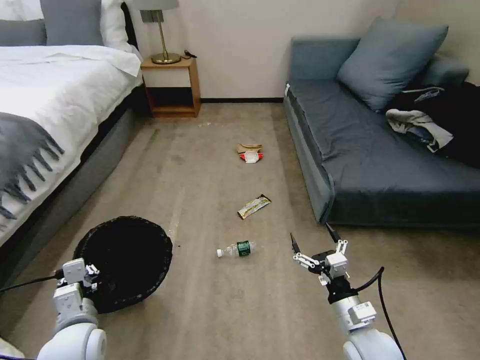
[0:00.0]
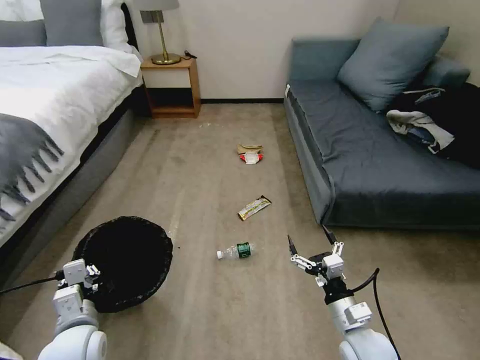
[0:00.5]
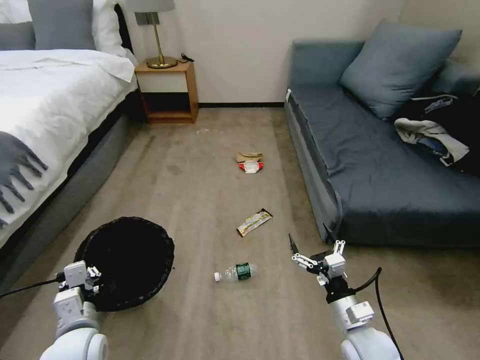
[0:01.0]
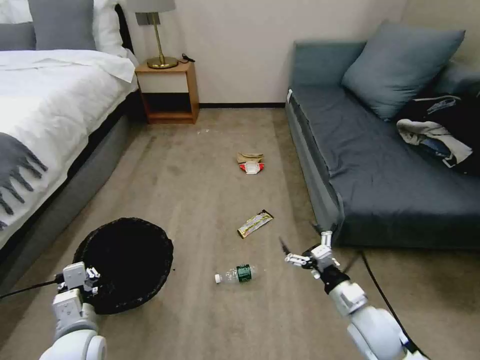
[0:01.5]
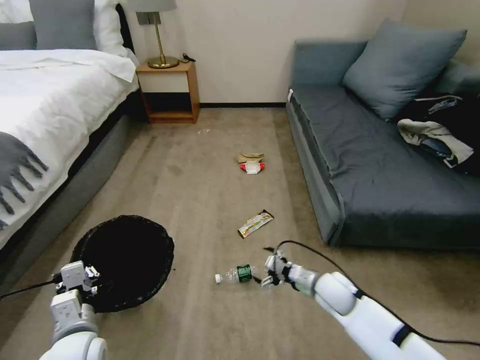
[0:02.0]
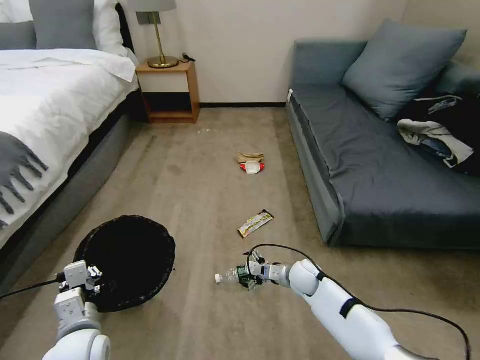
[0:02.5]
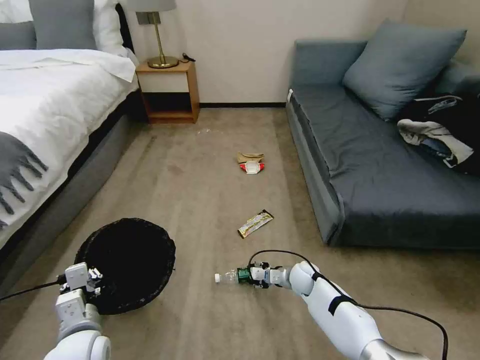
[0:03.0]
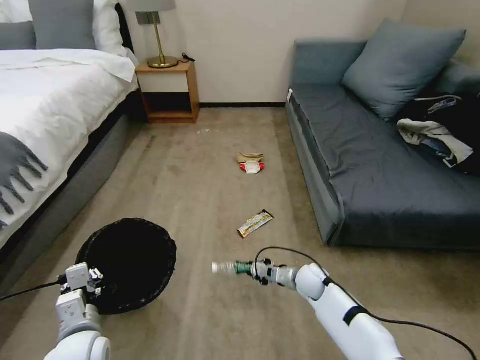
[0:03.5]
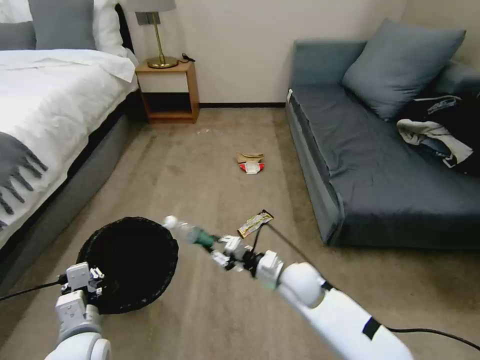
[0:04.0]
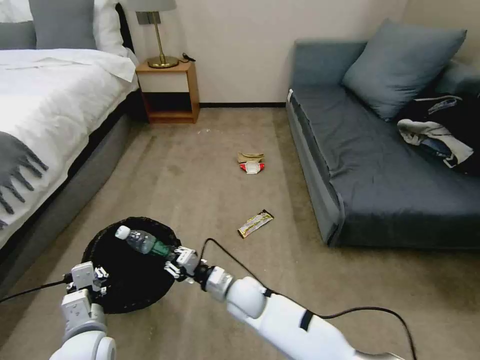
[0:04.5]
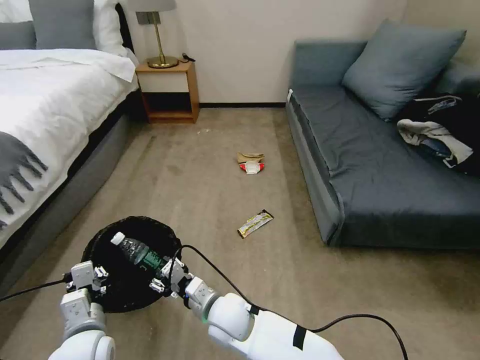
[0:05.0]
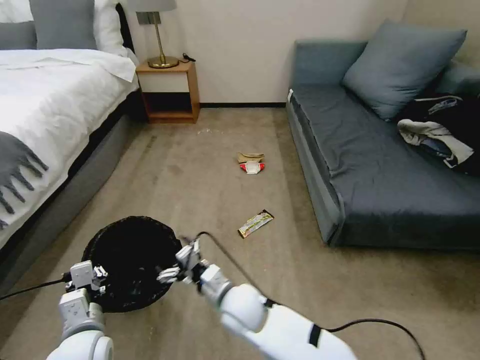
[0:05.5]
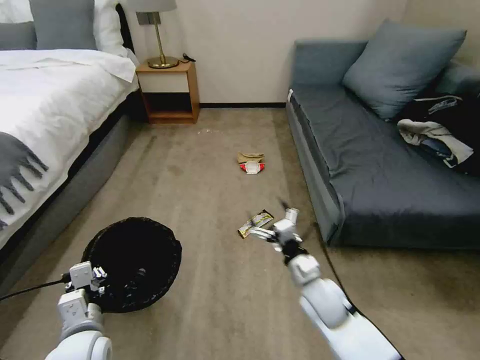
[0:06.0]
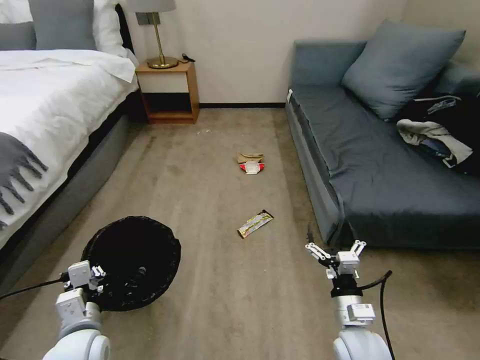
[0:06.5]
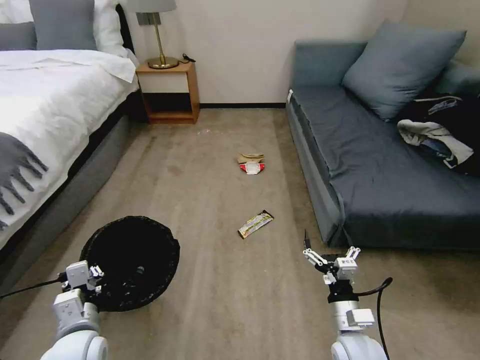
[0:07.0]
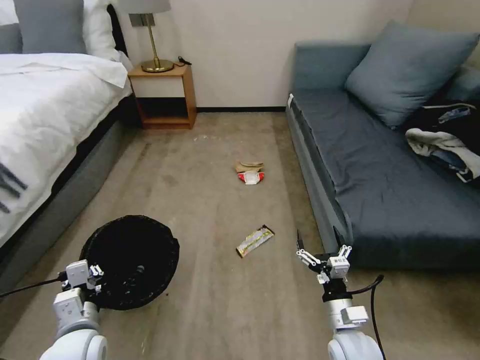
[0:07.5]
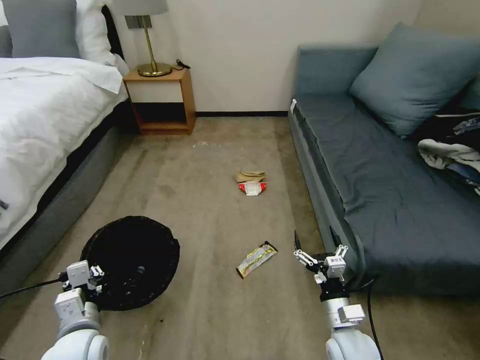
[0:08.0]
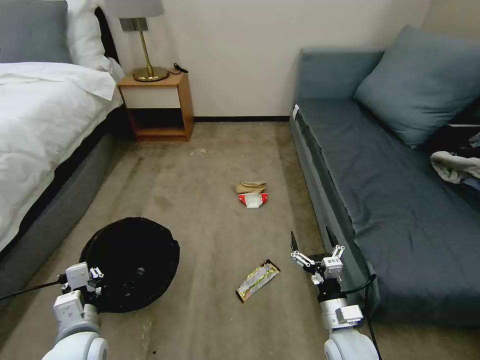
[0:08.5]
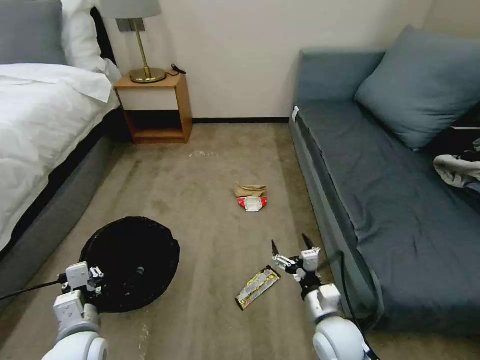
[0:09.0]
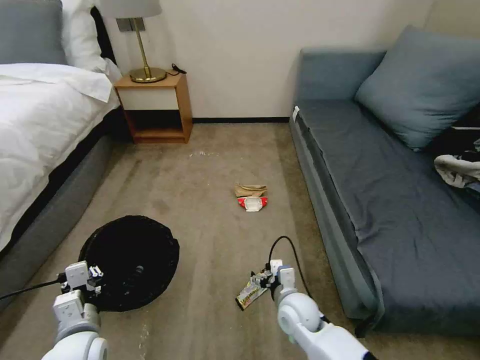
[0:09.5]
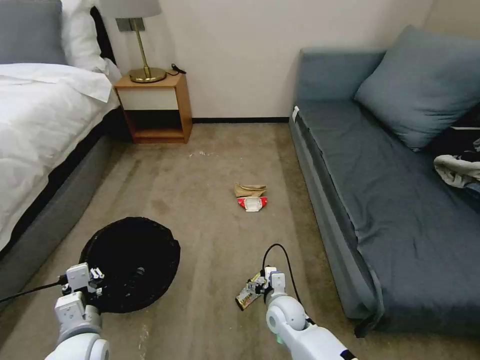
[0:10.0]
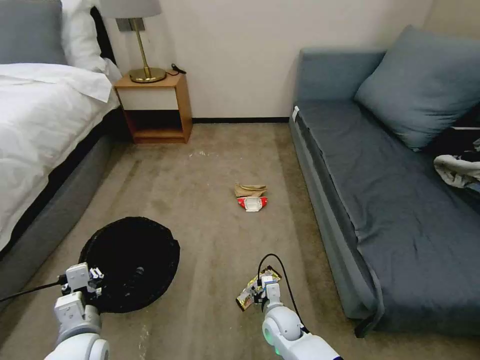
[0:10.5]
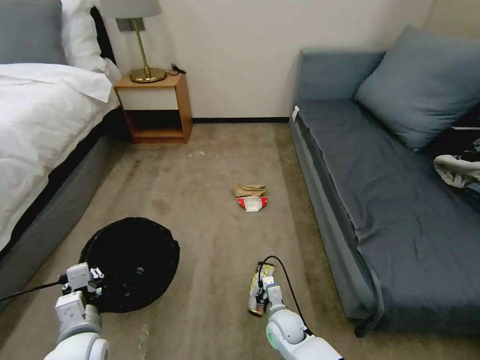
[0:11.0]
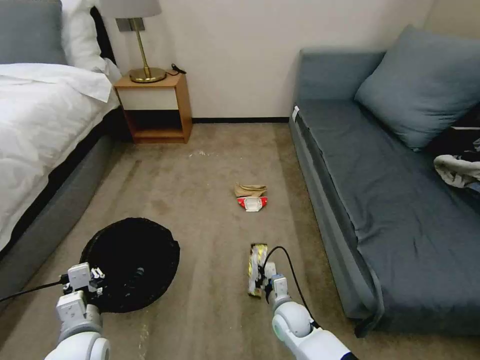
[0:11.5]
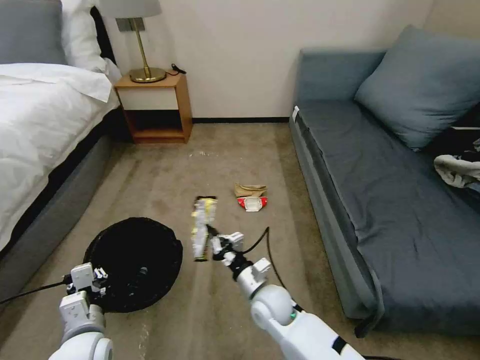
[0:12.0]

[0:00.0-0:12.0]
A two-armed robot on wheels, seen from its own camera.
Task of the whole recording: Pick up the trash bin, then pick up the garbage on the floor and place it into the trash bin.
0:00.0 to 0:02.0: The right gripper heads forward and downward, covering some 15 cm.
0:02.0 to 0:04.0: The right gripper goes about 10 cm to the left and upward, and closes up.
0:04.0 to 0:06.0: The right gripper goes to the left and returns, roughly 20 cm each way, and opens its fingers.
0:06.0 to 0:08.0: The right gripper moves backward and to the right, some 10 cm.
0:08.0 to 0:10.0: The right gripper moves to the left, forward and downward, about 15 cm.
0:10.0 to 0:12.0: The right gripper is displaced upward by approximately 5 cm, and closes its fingers.

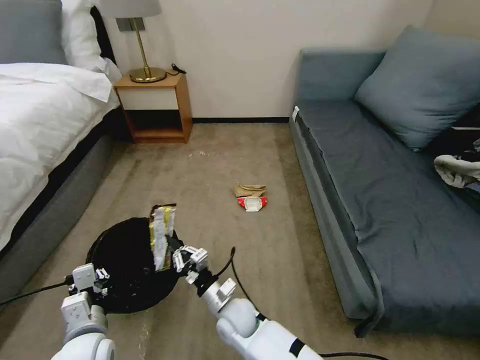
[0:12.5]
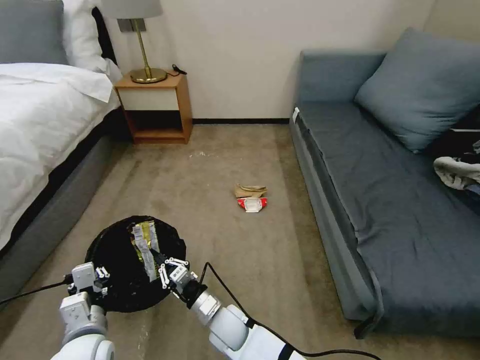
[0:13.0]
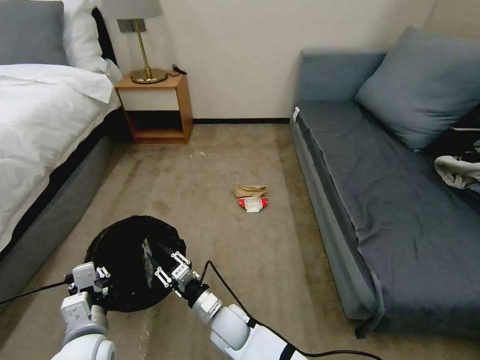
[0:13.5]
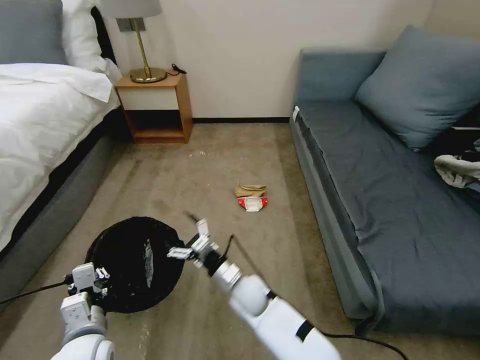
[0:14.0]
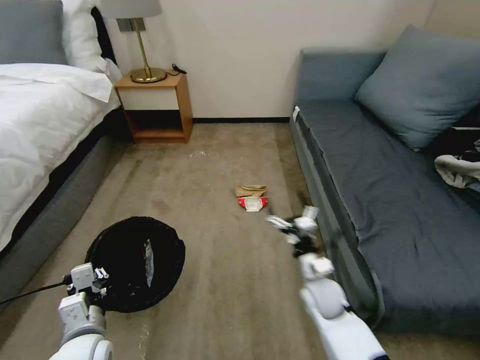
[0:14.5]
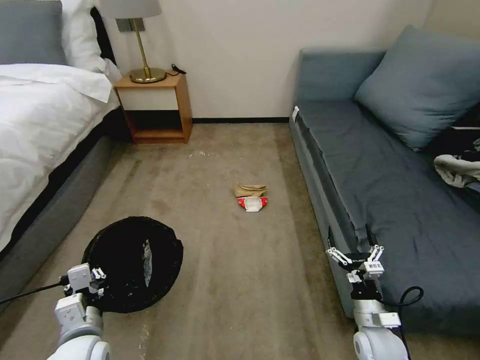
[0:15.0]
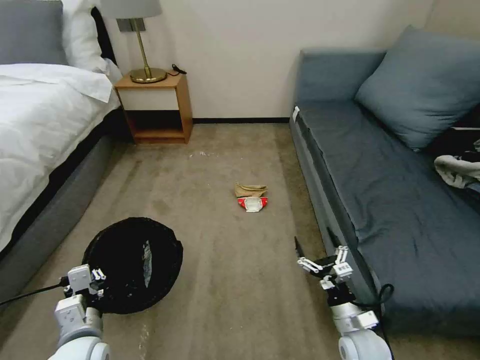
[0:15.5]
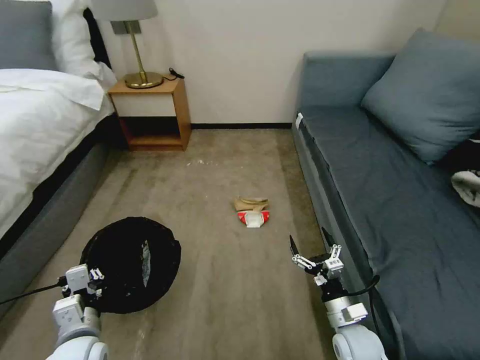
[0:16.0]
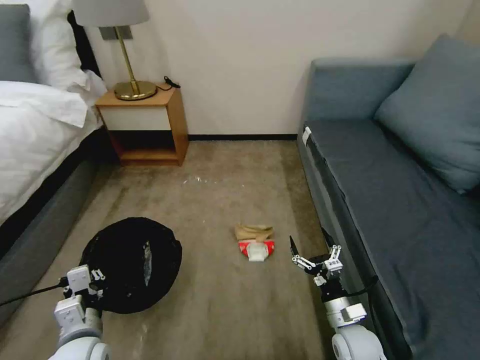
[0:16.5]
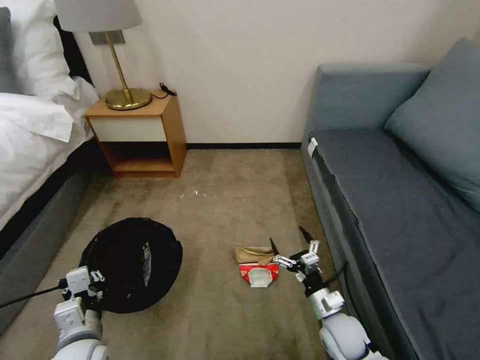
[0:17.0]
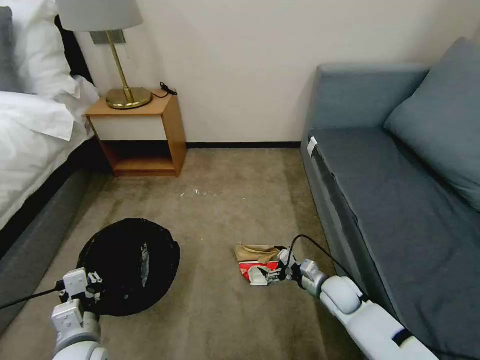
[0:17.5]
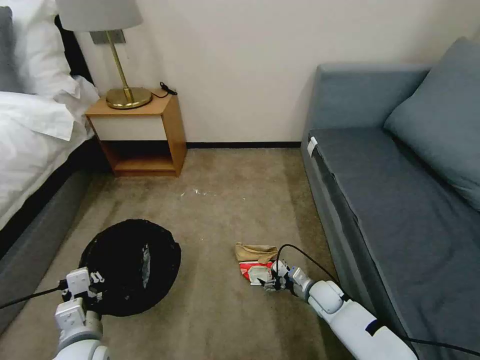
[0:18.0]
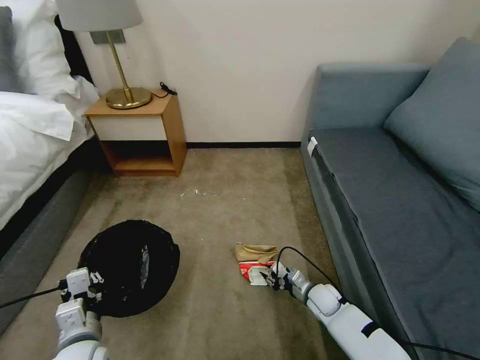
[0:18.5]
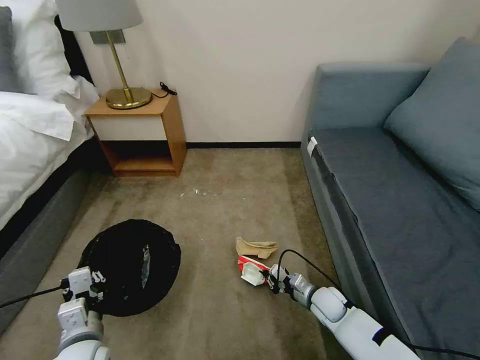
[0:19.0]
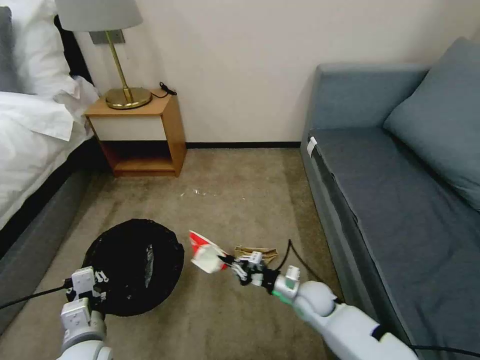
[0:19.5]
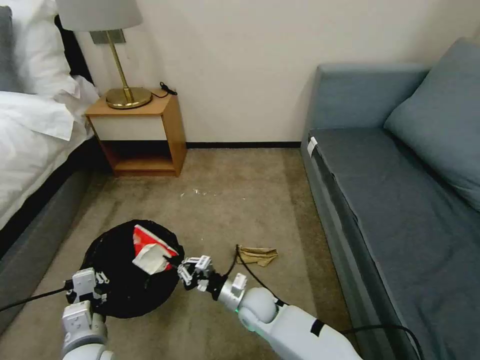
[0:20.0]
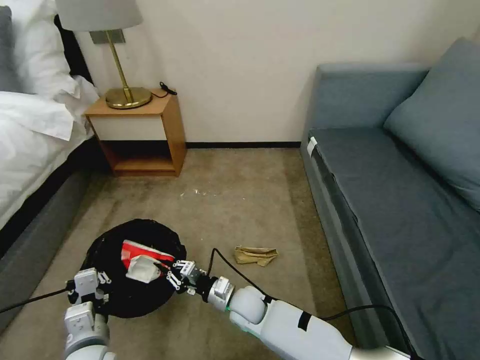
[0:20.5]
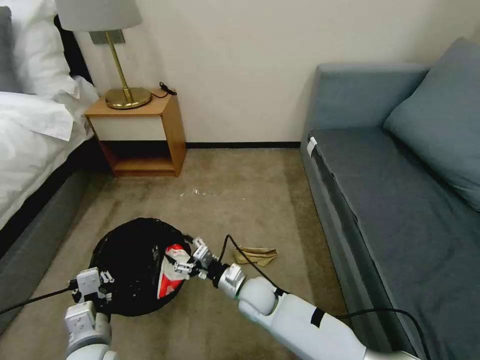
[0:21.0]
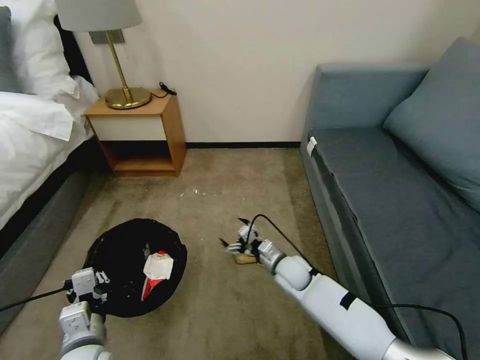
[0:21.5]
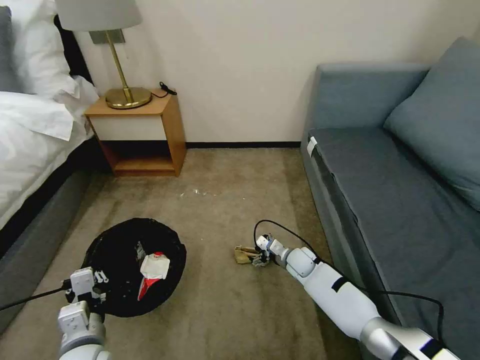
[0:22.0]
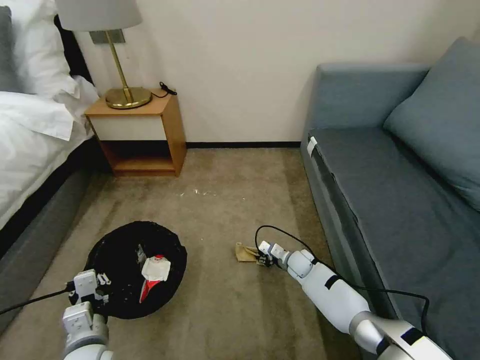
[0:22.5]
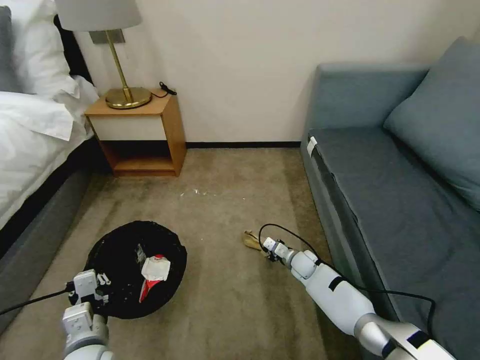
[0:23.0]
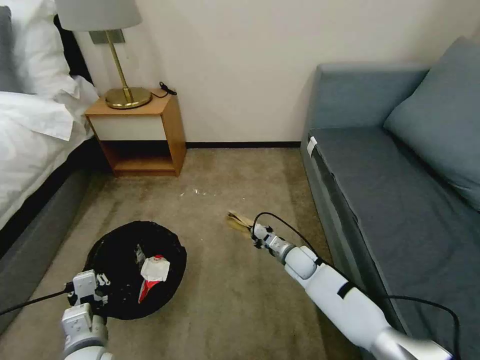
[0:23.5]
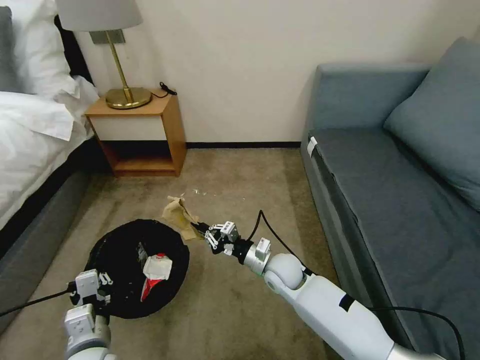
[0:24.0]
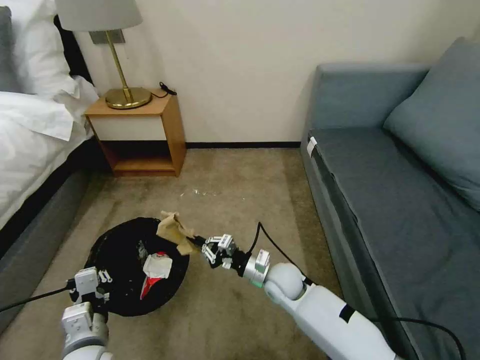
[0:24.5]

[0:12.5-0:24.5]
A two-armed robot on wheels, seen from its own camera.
Task of the whole recording: Pick up the trash bin, then pick up the garbage on the floor and place it into the trash bin.
0:12.5 to 0:14.5: The right gripper goes some 20 cm to the right, and opens.
0:14.5 to 0:16.5: The right gripper is displaced backward and to the right by roughly 10 cm.
0:16.5 to 0:18.5: The right gripper moves forward and downward, about 15 cm, and closes its fingers.
0:18.5 to 0:20.5: The right gripper moves to the left, some 25 cm.
0:20.5 to 0:22.5: The right gripper goes some 25 cm to the right and forward, and opens.
0:22.5 to 0:24.5: The right gripper is displaced upward, backward and to the left by roughly 20 cm, and closes up.

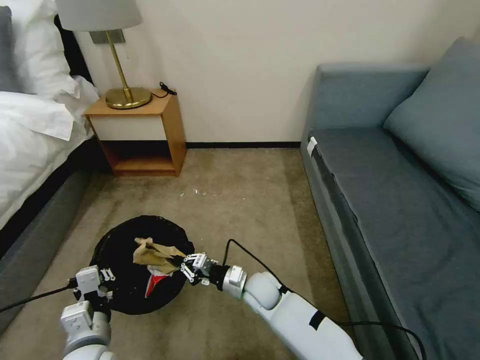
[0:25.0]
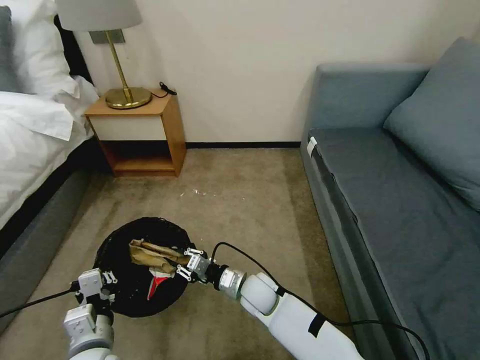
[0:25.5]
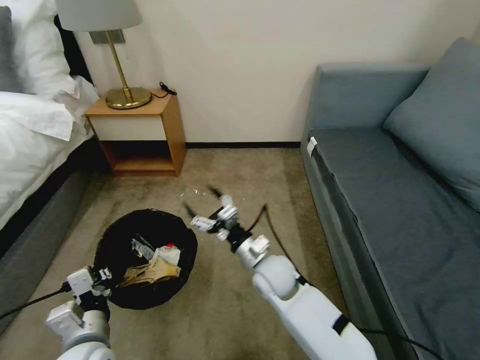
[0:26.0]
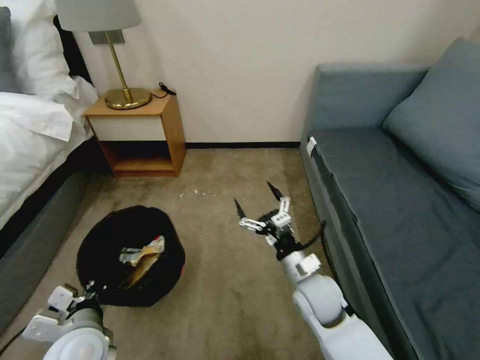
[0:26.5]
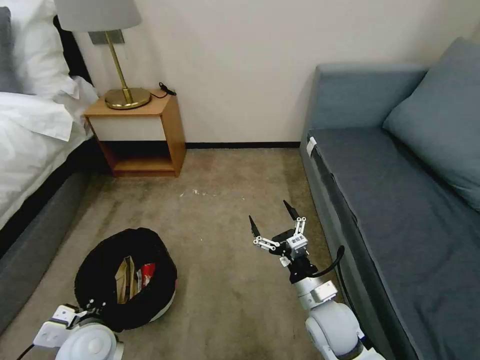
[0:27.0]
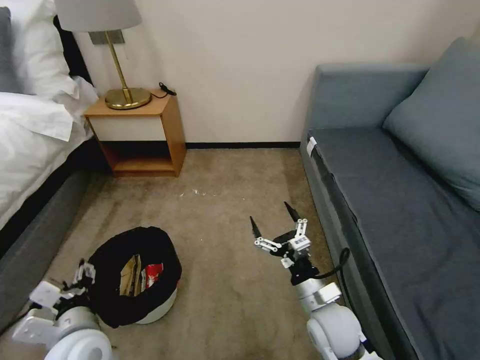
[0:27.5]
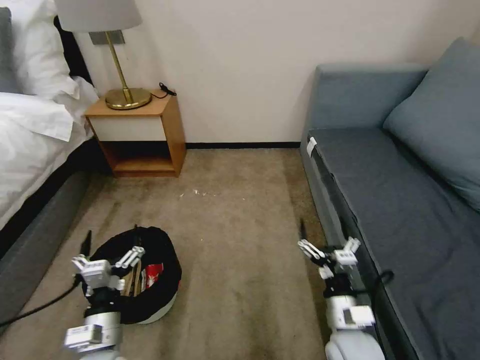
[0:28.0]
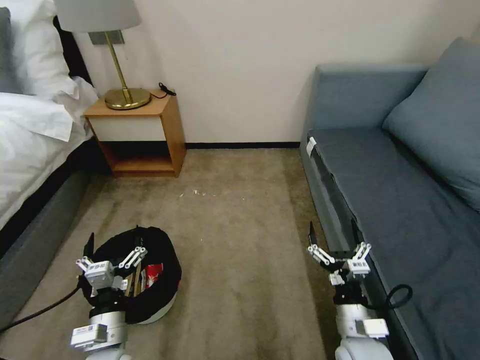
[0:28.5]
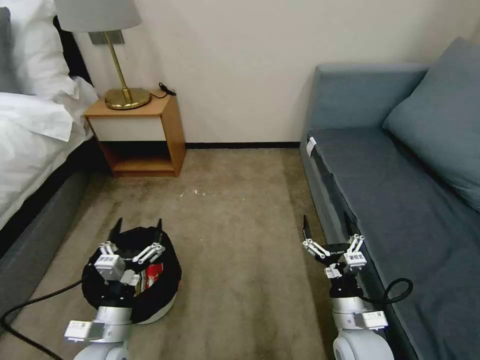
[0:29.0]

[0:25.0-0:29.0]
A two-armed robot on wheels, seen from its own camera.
Task of the whole recording: Pick up the trash bin, then pick up the garbage on the floor and place it into the trash bin.
0:25.0 to 0:27.0: The right gripper travels to the right, backward and upward by about 20 cm, and opens up.
0:27.0 to 0:29.0: The left gripper opens. Meanwhile the right gripper changes place by roughly 5 cm.
